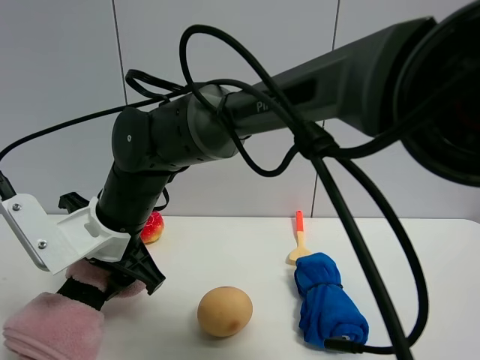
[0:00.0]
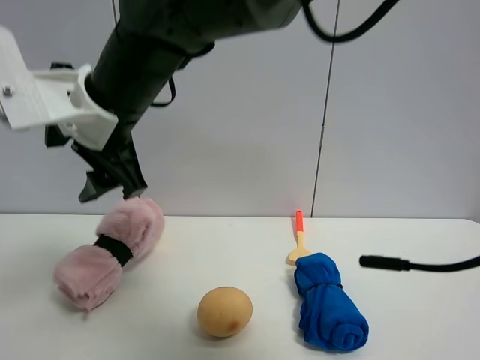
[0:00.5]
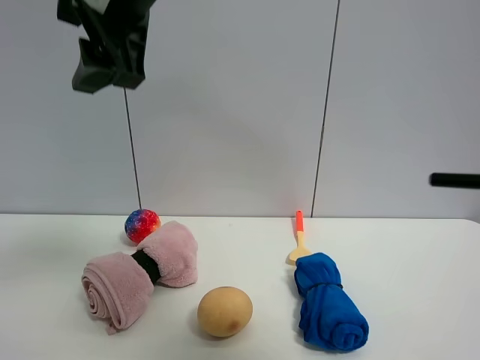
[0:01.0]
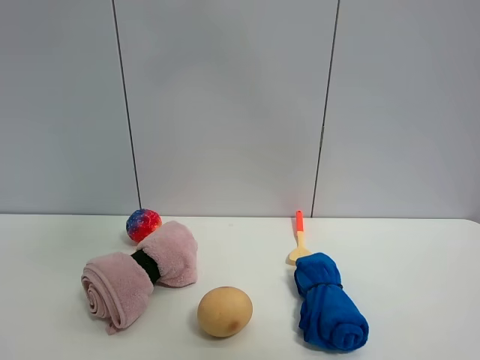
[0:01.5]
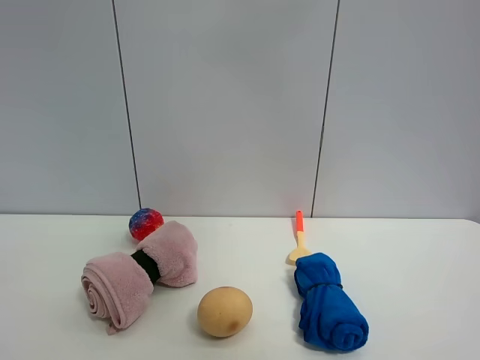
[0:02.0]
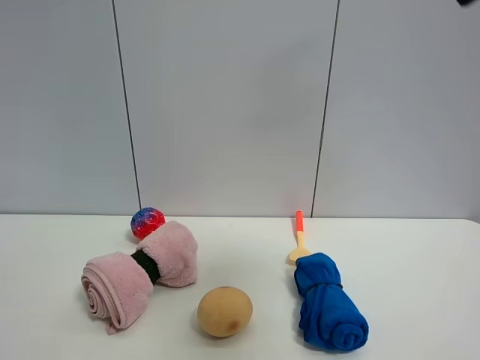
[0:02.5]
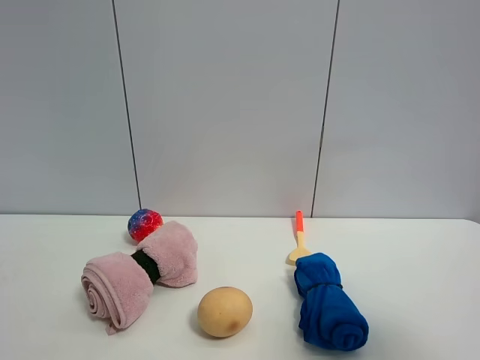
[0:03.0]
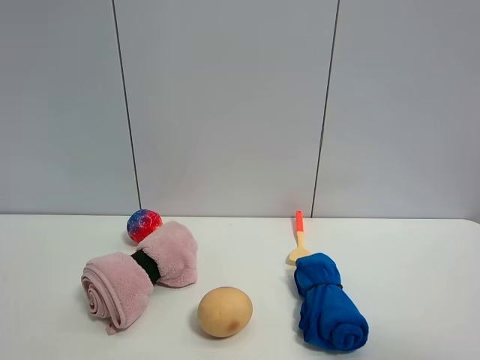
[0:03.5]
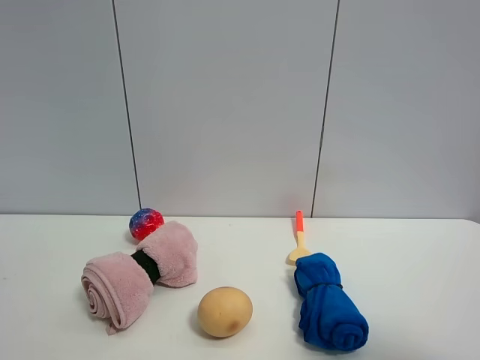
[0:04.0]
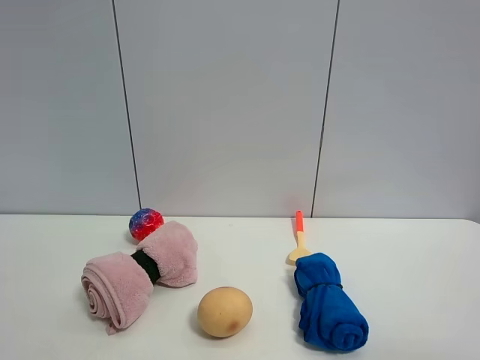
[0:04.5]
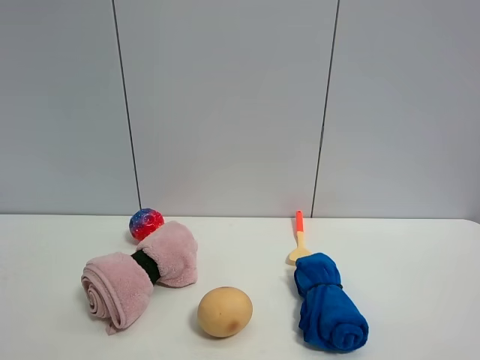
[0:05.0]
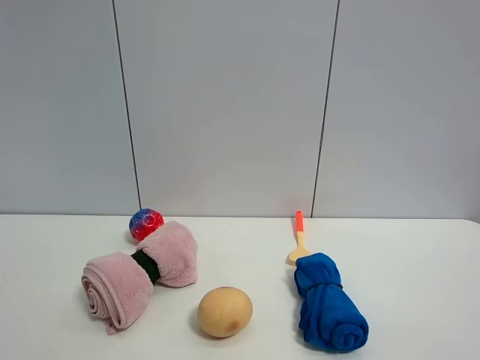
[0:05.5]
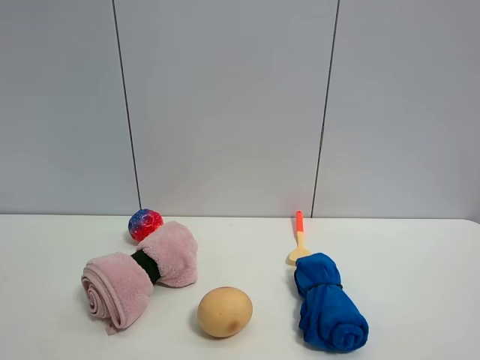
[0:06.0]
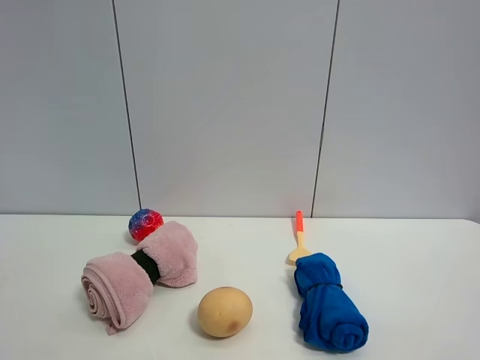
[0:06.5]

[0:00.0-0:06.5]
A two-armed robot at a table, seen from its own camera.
Task of the whole recording: the gripper move the object.
0:00.0 to 0:02.0: The right gripper moves upward and to the right, some 50 cm.
0:02.0 to 0:04.5: The right gripper moves downward, to the right and backward, about 35 cm.

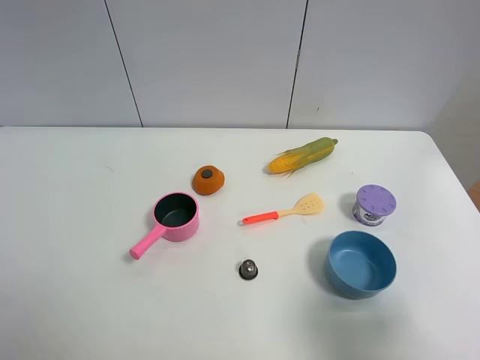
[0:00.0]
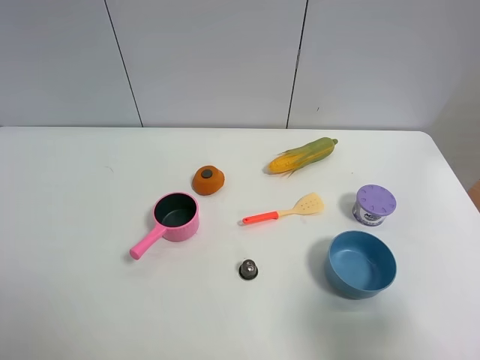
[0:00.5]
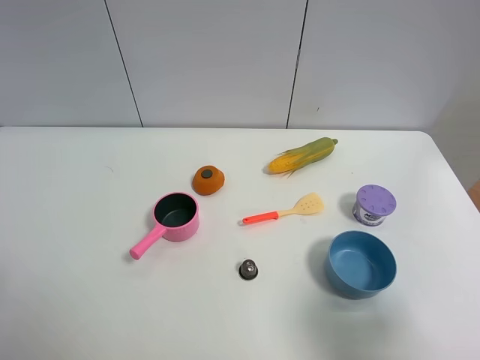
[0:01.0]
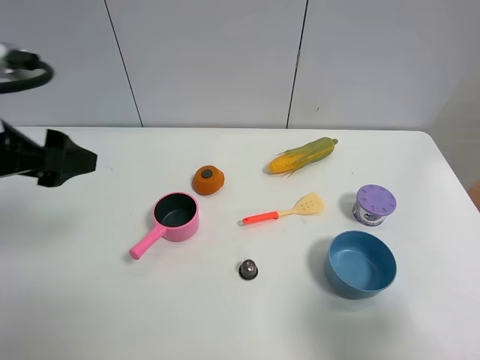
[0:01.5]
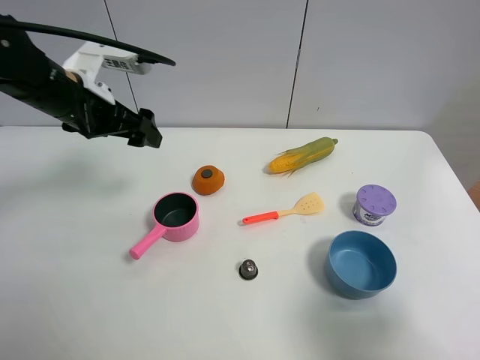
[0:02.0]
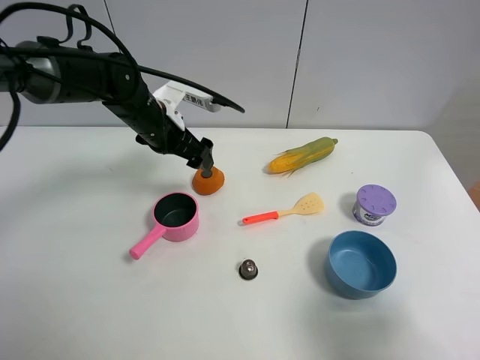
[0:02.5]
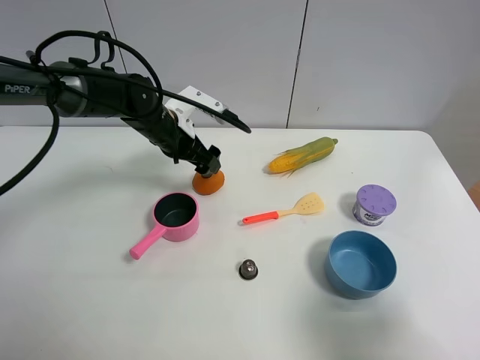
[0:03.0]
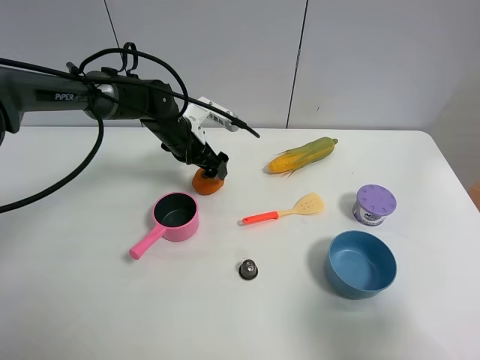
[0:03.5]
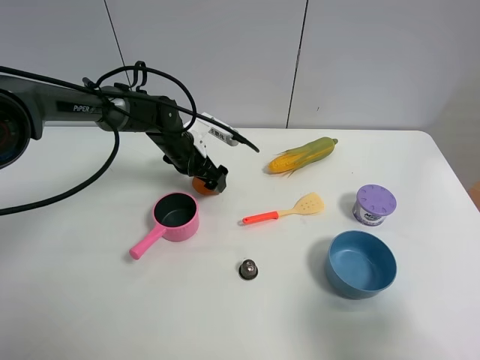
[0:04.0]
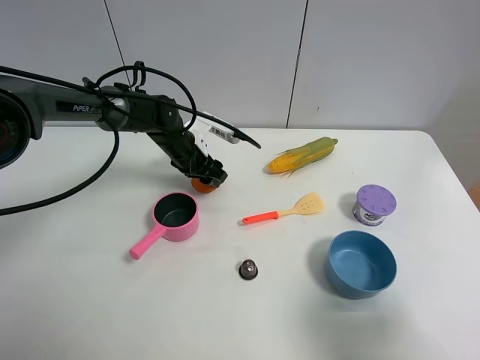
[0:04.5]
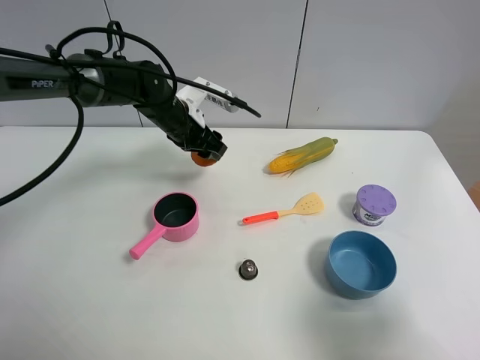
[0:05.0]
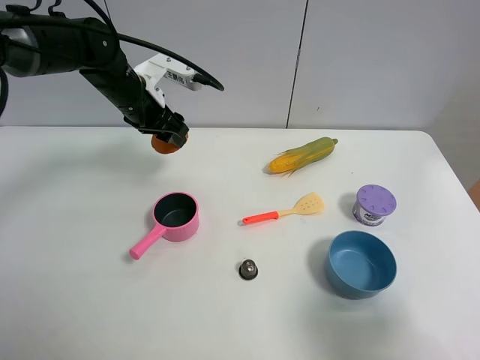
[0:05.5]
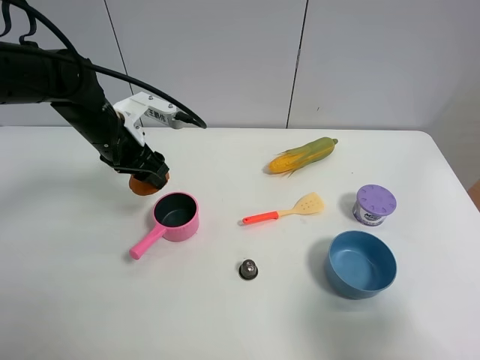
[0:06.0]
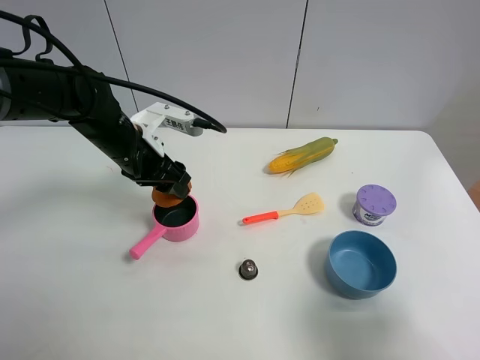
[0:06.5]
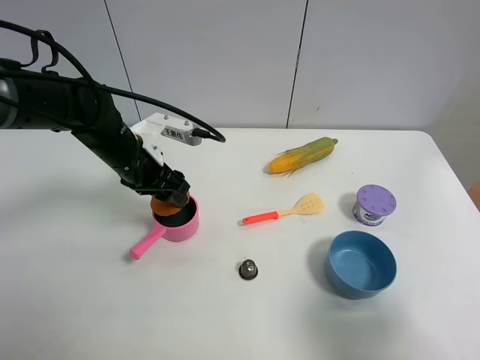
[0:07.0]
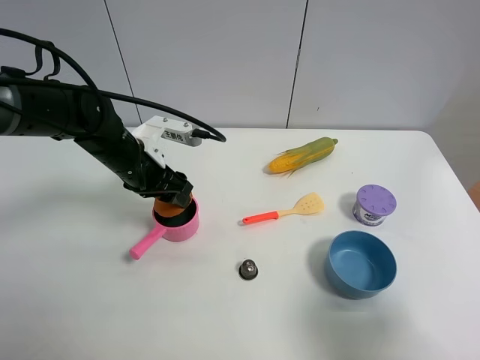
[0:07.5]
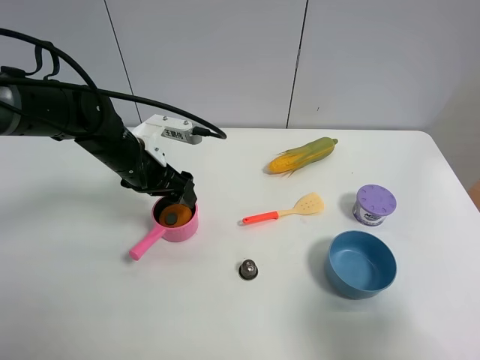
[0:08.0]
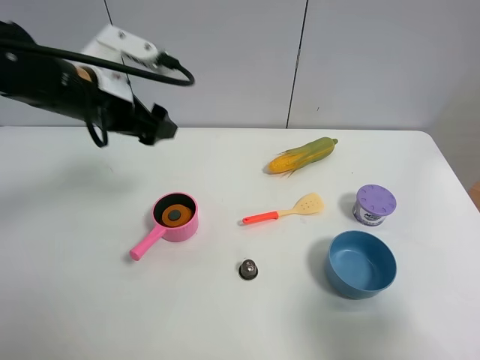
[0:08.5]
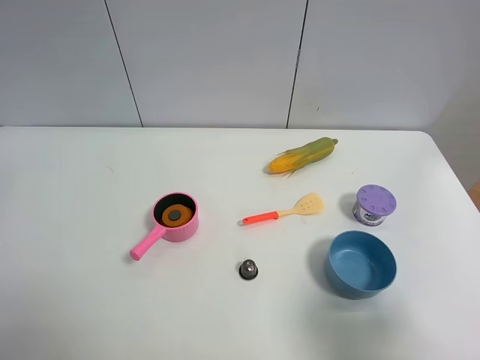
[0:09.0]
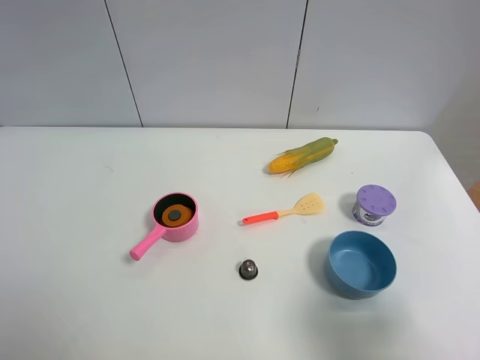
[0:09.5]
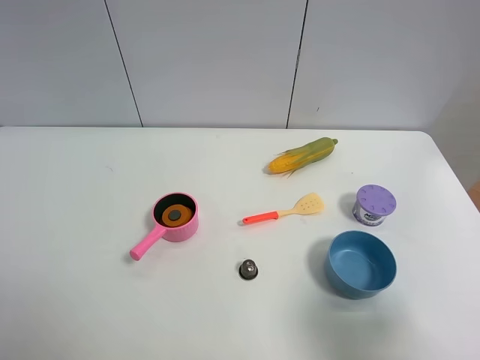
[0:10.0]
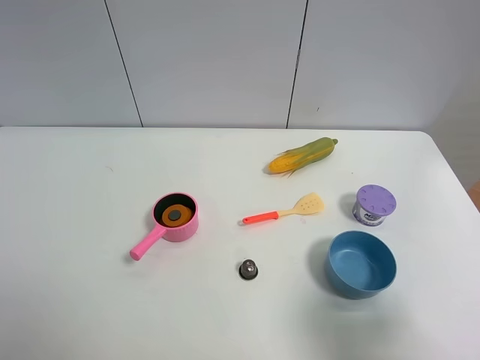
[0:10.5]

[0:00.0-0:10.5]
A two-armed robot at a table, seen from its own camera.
Task of the whole recording: the gripper move the object.
Step, 0:00.0 to 0:04.0: Grasp the persimmon with the left gripper.
Step, 0:04.5 to 0:08.0: Place the persimmon into the pink pot with the left gripper.
0:00.0 to 0:02.0: The left gripper shifts roughly 35 cm forward.
0:02.0 to 0:04.0: The left gripper heads downward, to the right and forward, covering some 20 cm.
0:04.0 to 0:06.5: The left gripper goes about 15 cm backward and upward, and closes its fingers.
0:06.5 to 0:08.5: The left gripper shifts roughly 10 cm upward, and opens up.
0:08.5 to 0:10.5: The left gripper shifts roughly 35 cm backward and to the left, and opens.

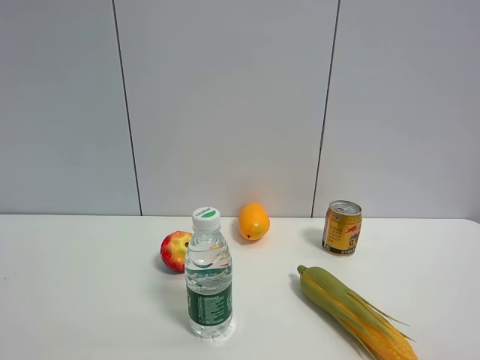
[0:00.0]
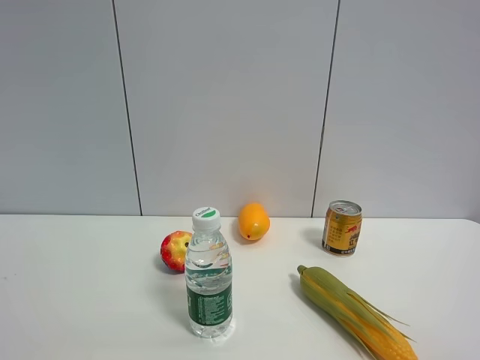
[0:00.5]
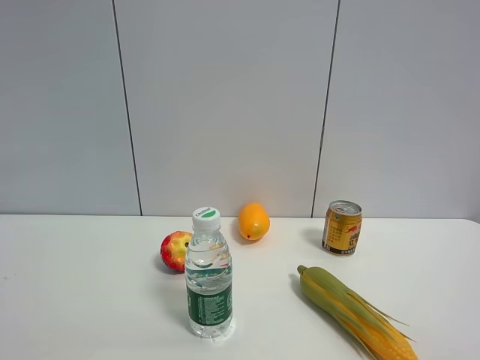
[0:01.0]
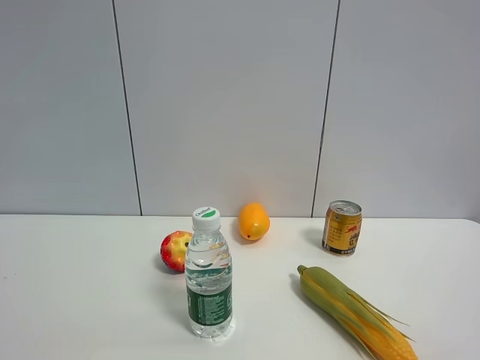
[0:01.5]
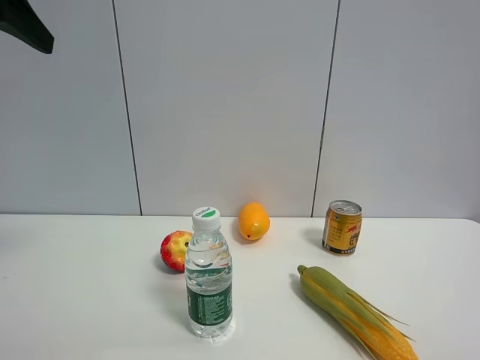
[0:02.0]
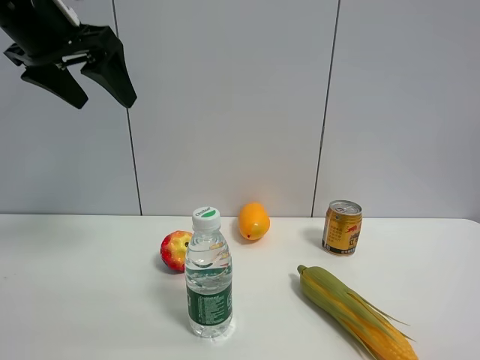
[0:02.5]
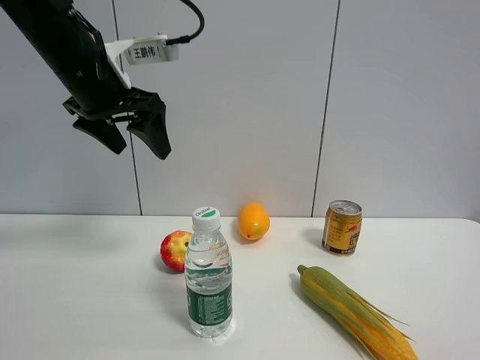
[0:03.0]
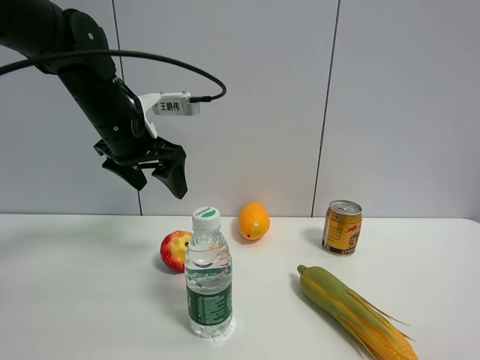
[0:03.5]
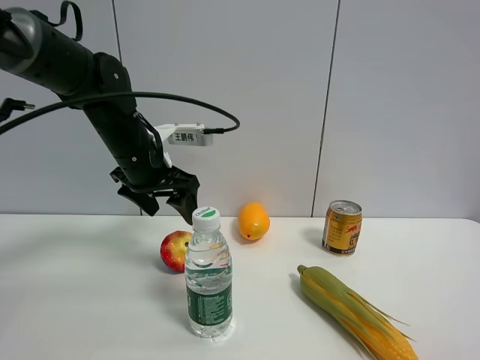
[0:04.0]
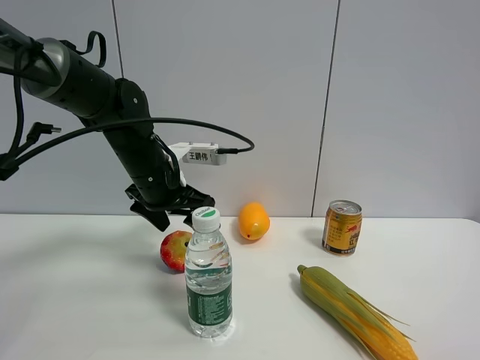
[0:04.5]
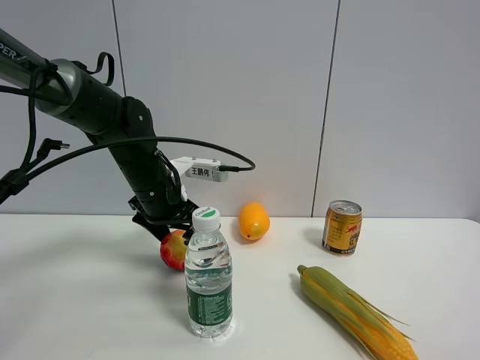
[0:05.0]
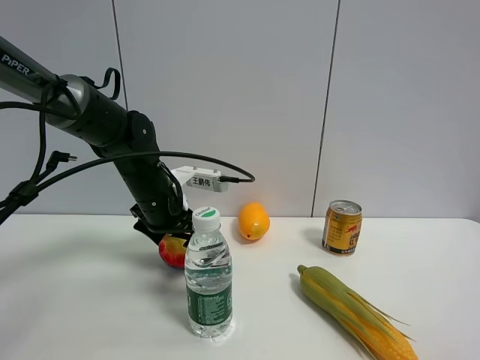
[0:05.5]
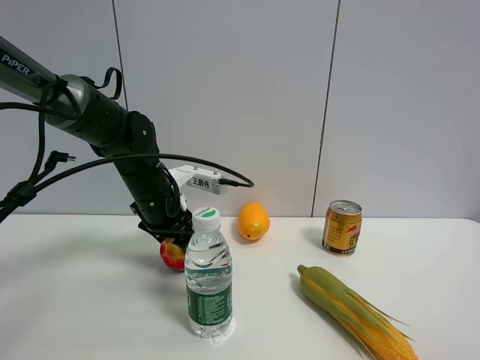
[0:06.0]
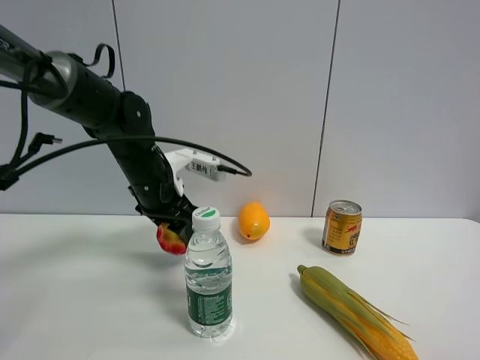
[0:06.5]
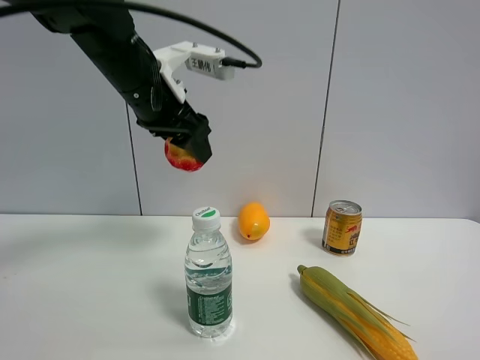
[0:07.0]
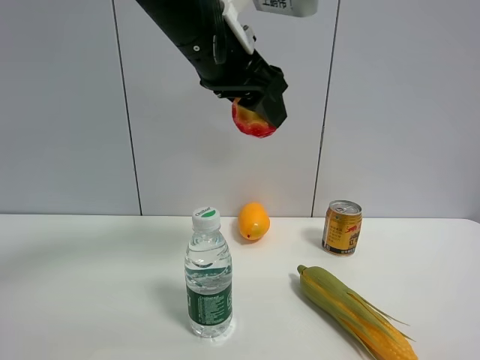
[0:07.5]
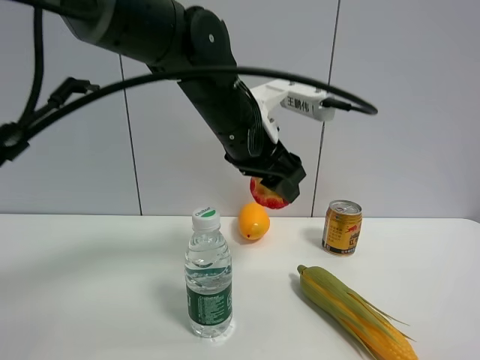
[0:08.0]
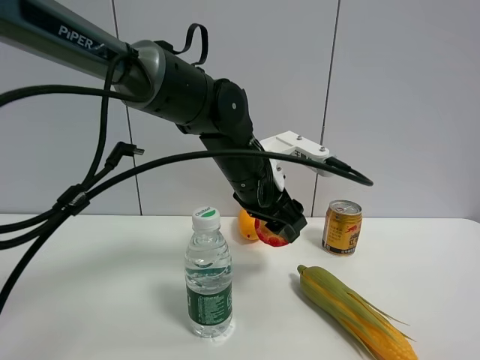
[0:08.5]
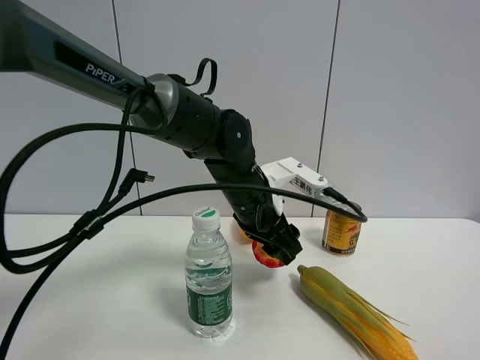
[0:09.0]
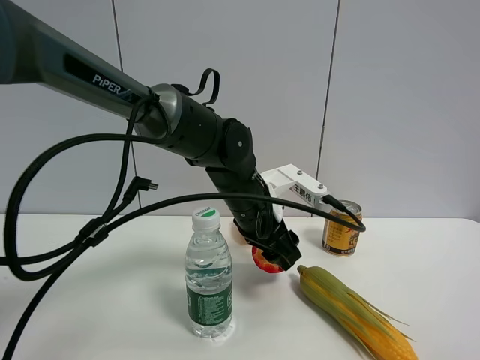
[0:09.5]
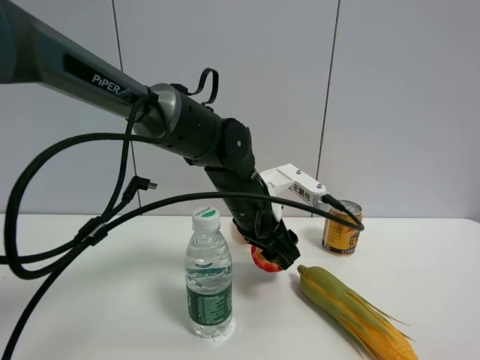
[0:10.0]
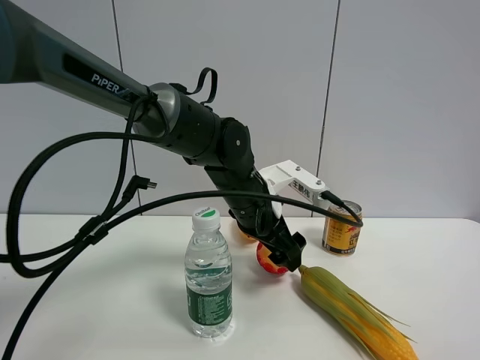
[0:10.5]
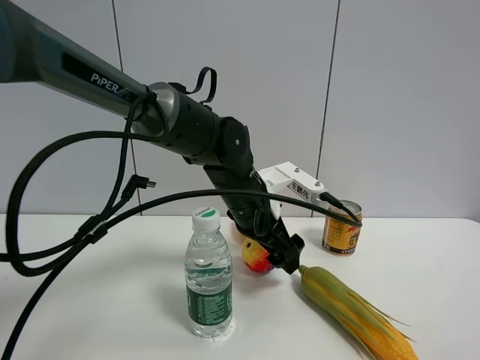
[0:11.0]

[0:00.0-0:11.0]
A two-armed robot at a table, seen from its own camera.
Task of the whole recording: the gripper move the object.
Step, 0:00.0 to 0:06.0: Grasp the colorful ball with the left gripper.
Step, 0:06.5 to 0:10.5: Place the colorful ball on the table with the left gripper.
0:00.0 to 0:02.0: The left gripper goes roughly 30 cm forward, and closes up.
0:02.0 to 0:03.5: The left gripper is displaced downward, forward and to the right by roughly 25 cm.
0:03.5 to 0:05.5: The left gripper is displaced downward by some 10 cm.
0:05.5 to 0:07.5: The left gripper travels upward and to the right by some 25 cm, and closes its fingers.
0:07.5 to 0:09.0: The left gripper is displaced downward by about 20 cm.
0:09.0 to 0:11.0: The left gripper opens.
